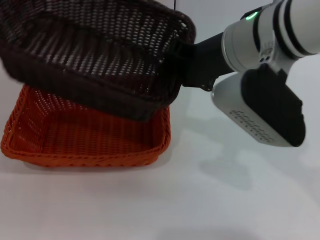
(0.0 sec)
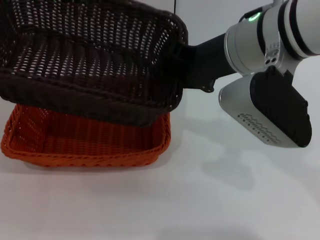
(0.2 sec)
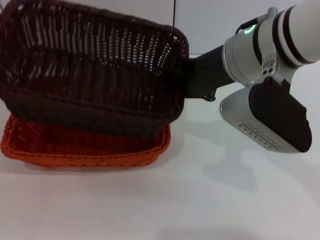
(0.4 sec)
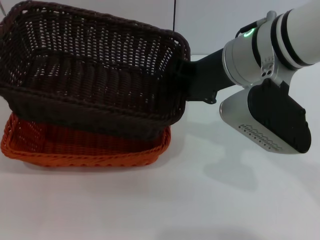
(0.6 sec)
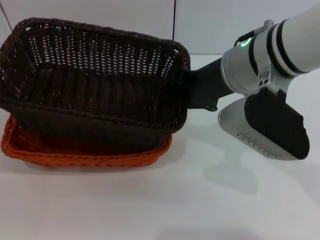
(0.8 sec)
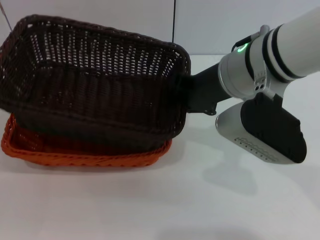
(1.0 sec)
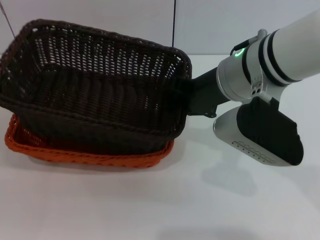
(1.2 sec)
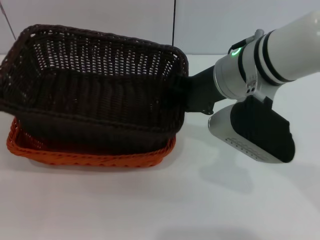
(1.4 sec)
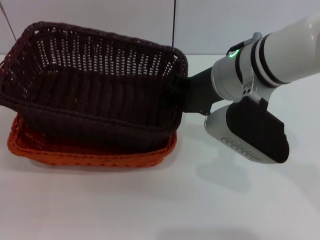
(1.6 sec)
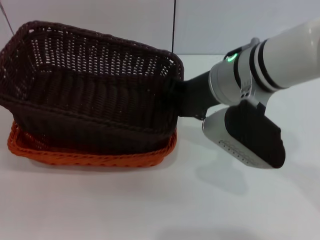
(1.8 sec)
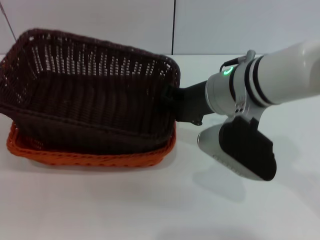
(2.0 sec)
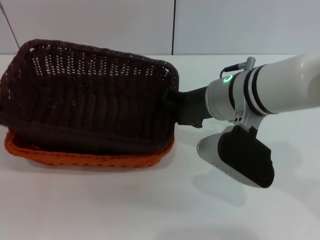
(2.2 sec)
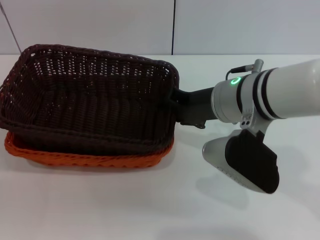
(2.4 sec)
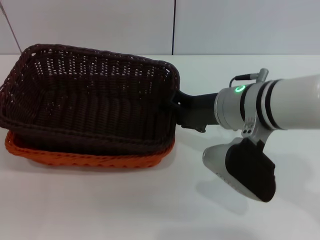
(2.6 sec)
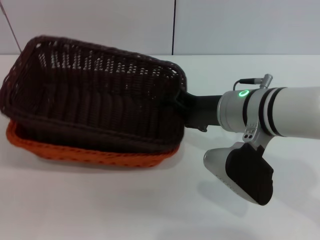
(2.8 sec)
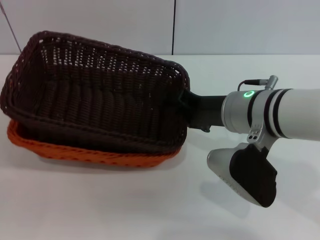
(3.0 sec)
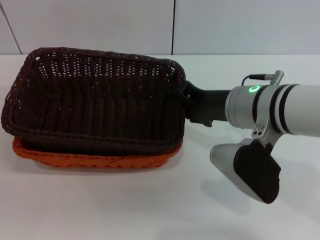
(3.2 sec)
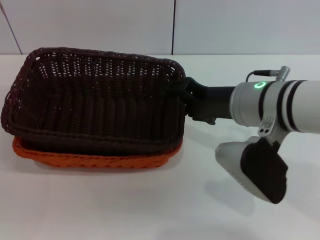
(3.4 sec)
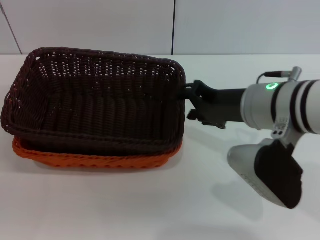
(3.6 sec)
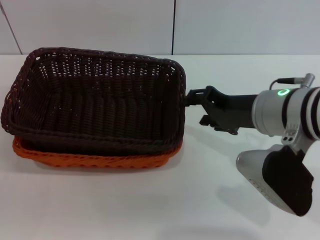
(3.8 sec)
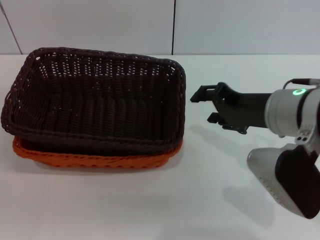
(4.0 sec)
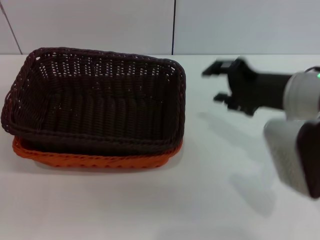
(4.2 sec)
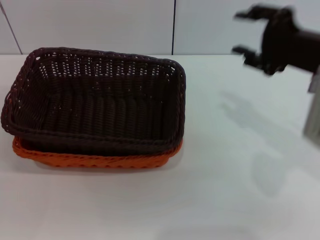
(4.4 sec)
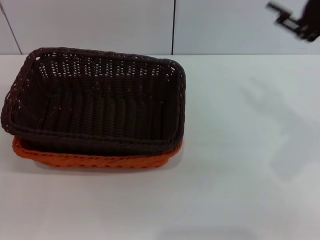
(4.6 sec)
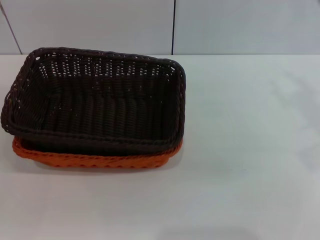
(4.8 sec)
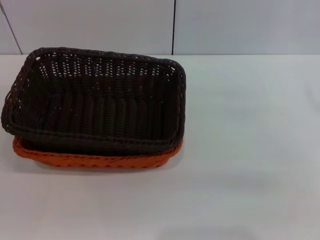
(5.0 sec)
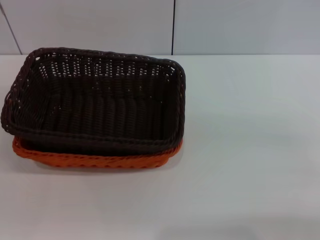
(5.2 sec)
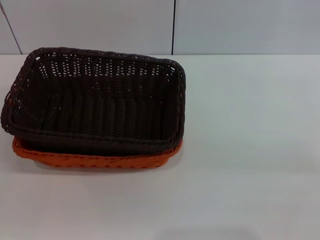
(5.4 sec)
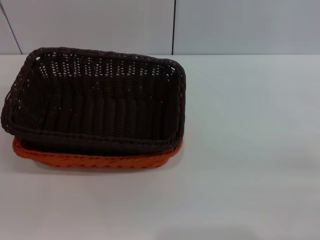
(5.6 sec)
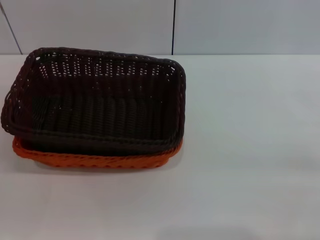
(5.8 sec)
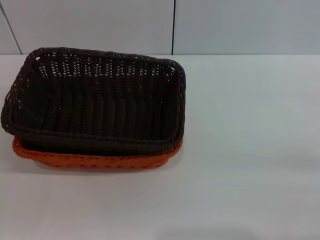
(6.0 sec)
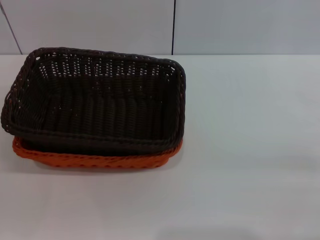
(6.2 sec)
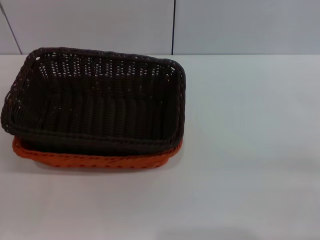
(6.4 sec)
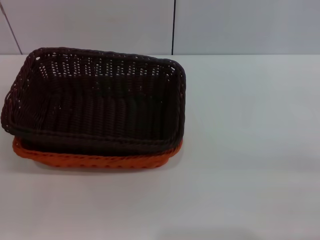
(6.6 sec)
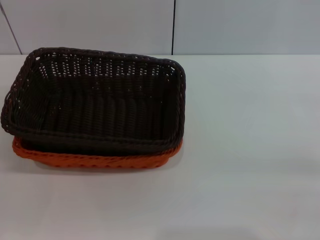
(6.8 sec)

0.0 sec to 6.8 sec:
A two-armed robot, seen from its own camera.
Step, 0.0 sec to 3.0 sec: Place the dark basket on the light basket with the right gripper.
1.4 sec to 2.8 sec: The right gripper travels downward by approximately 5 cm, and opens.
2.8 sec to 4.0 sec: The right gripper moves roughly 5 cm.
4.0 sec to 5.4 sec: The right gripper heads to the right and backward, covering some 25 cm.
